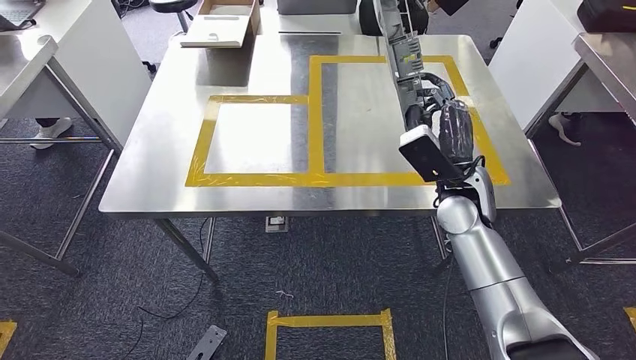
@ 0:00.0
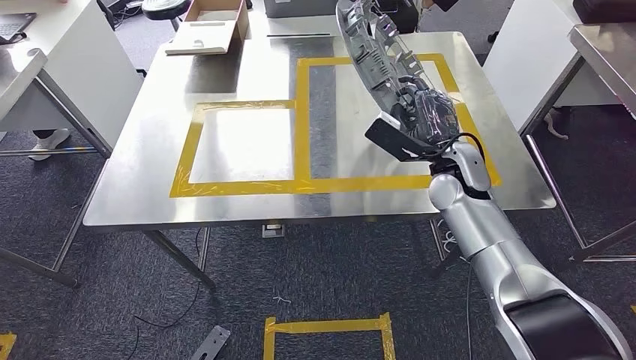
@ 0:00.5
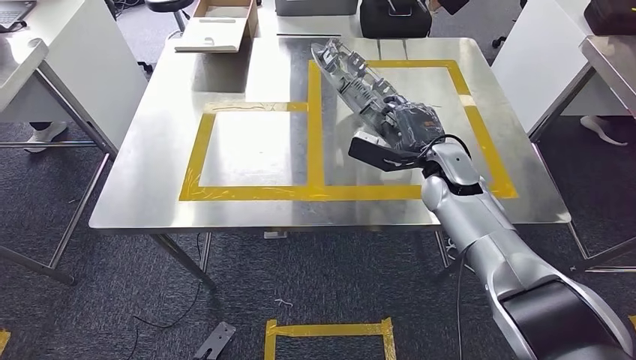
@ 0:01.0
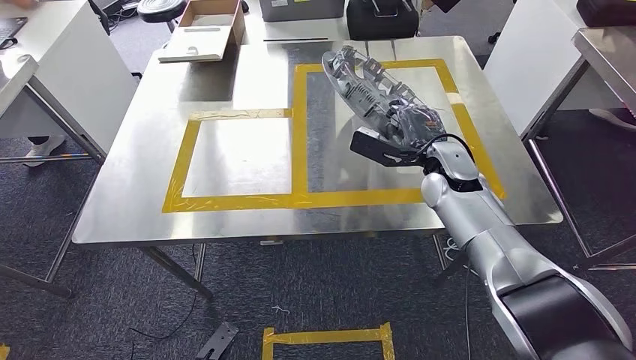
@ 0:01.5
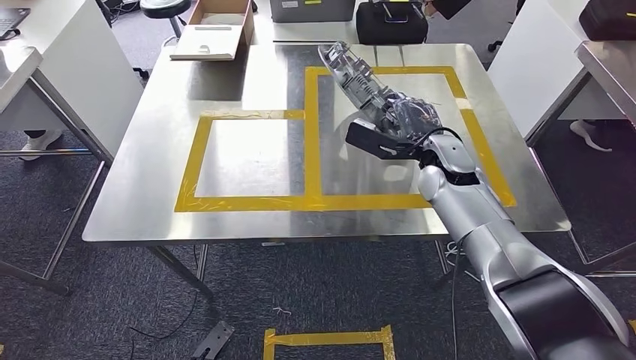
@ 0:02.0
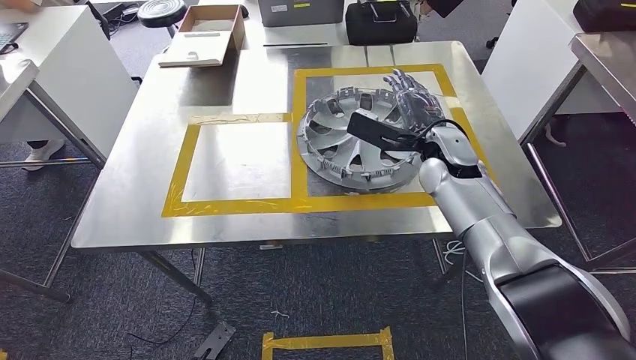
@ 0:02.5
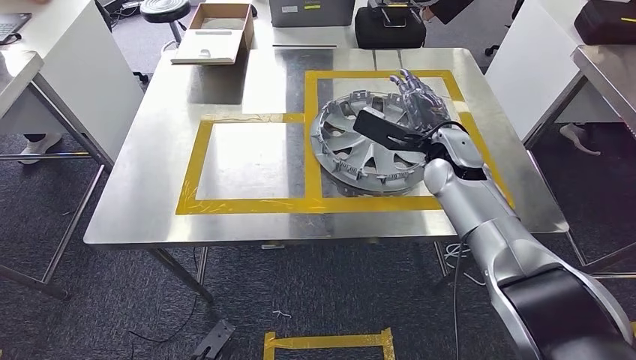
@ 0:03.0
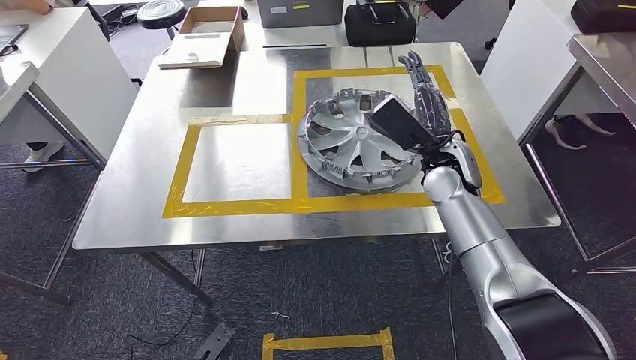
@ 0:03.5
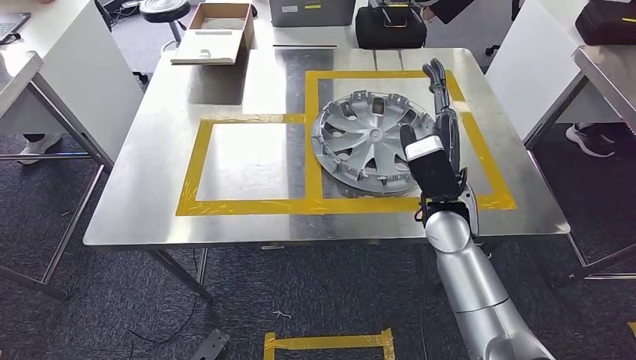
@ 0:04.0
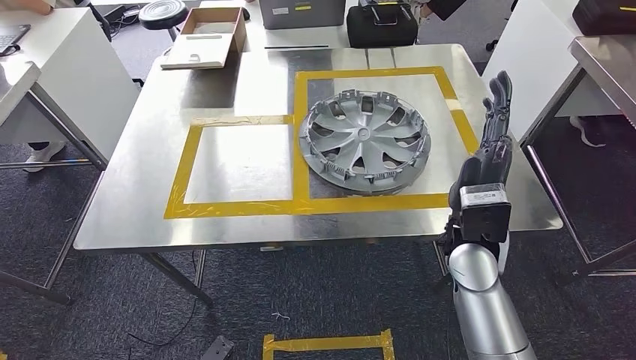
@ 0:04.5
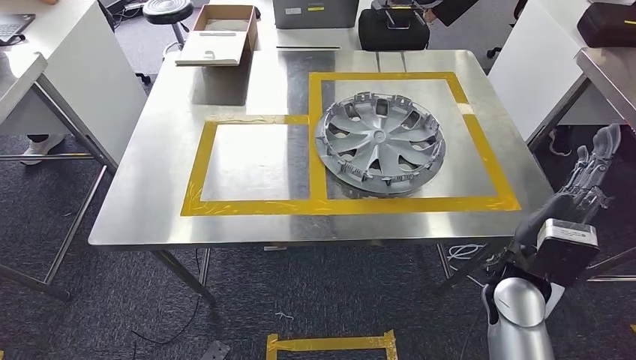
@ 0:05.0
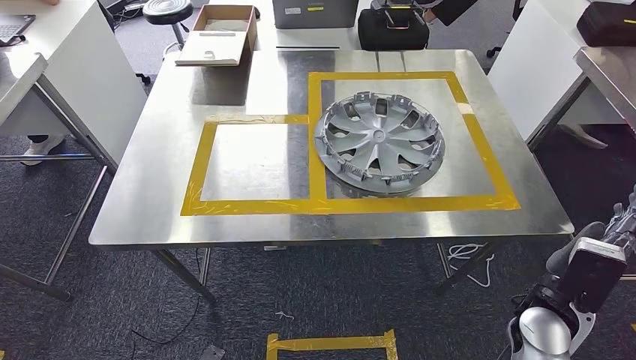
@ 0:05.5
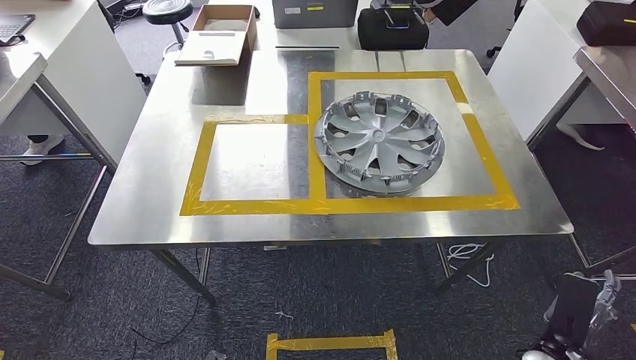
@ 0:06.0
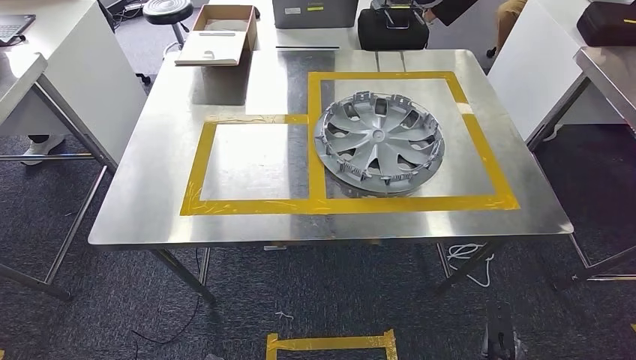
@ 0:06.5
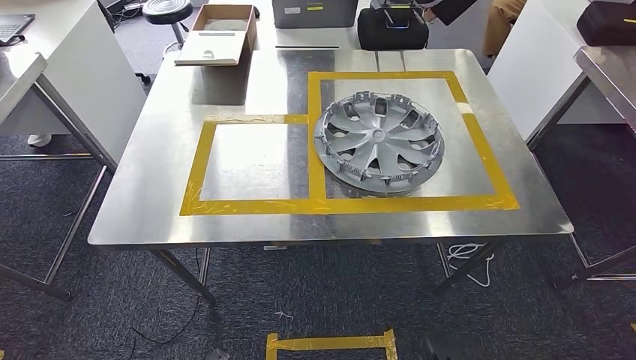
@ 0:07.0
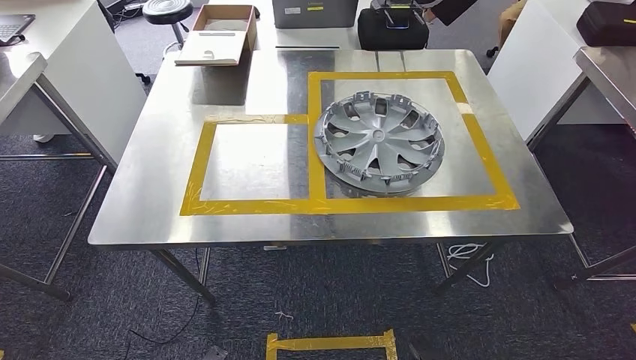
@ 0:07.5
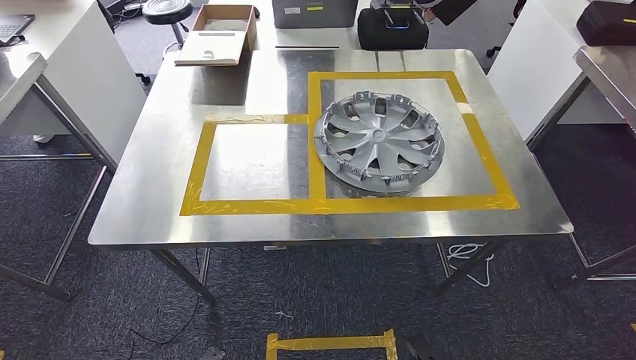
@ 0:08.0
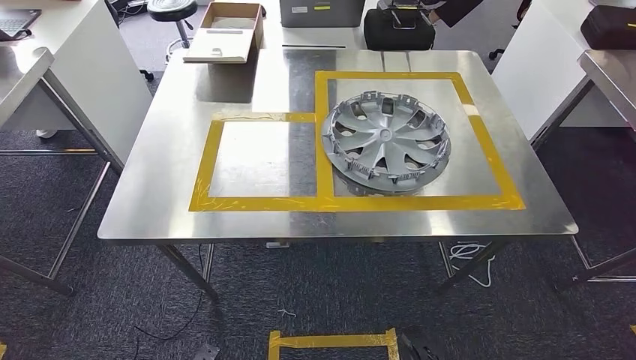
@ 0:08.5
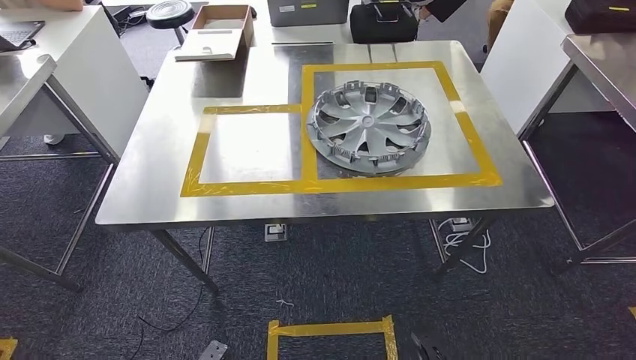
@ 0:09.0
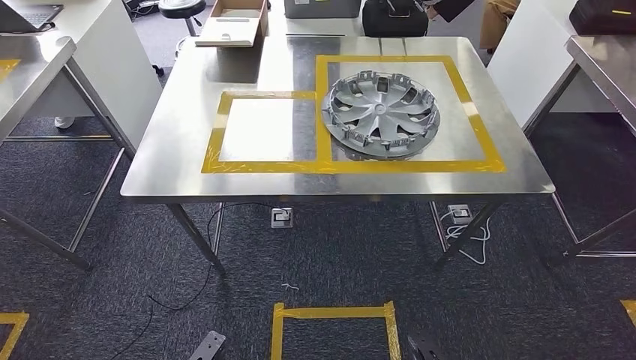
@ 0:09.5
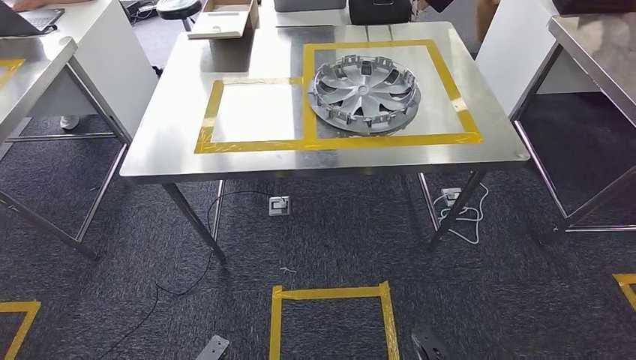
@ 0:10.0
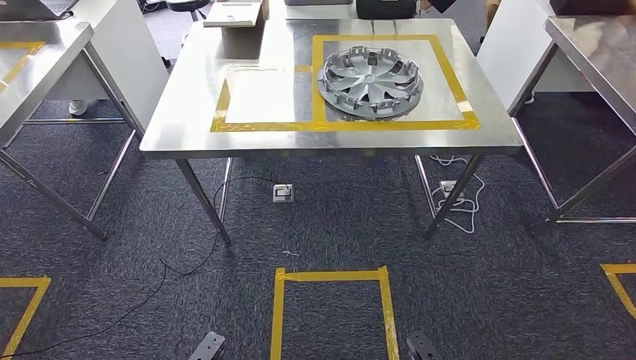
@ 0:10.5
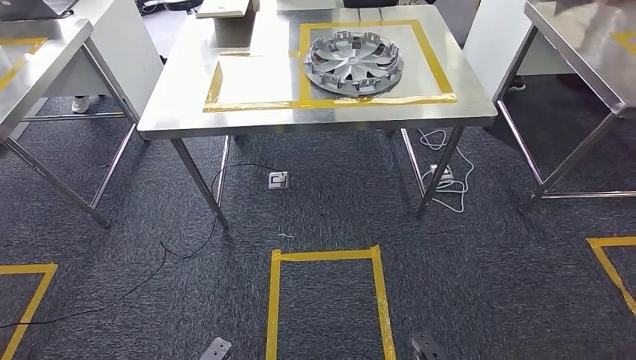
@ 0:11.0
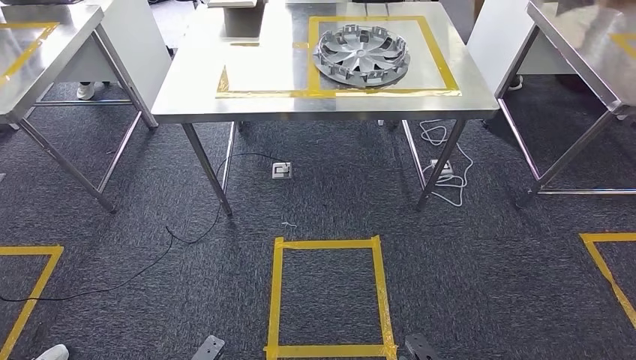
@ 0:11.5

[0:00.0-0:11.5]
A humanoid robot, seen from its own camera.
Step, 0:00.5 to 0:03.5: Insert the small component into the corresponding slot on the workbench.
0:04.0 to 0:06.0: The right hand goes some 30 cm backward, downward and to the right.
0:06.0 to 0:07.5: The right hand goes some 20 cm downward, to the left and backward.

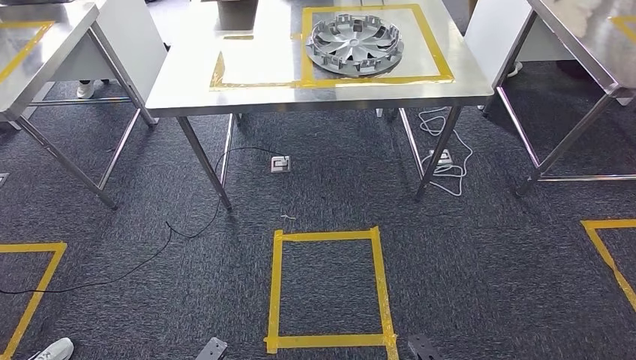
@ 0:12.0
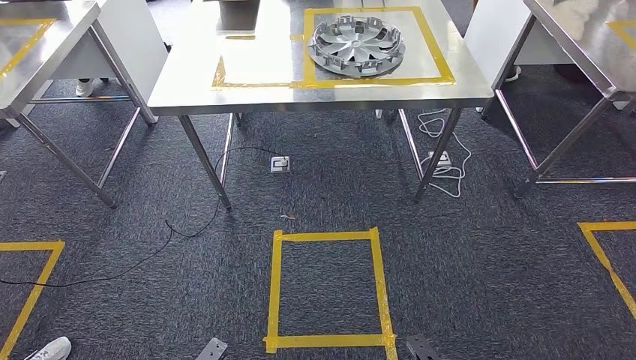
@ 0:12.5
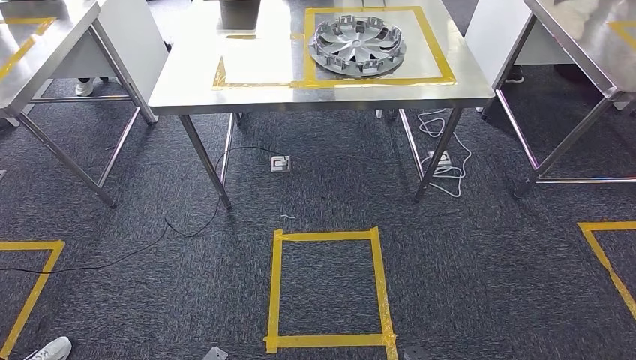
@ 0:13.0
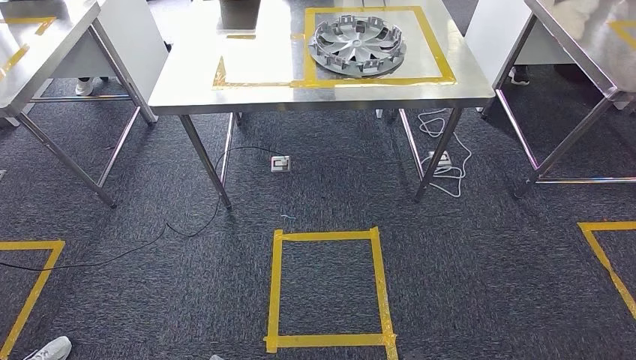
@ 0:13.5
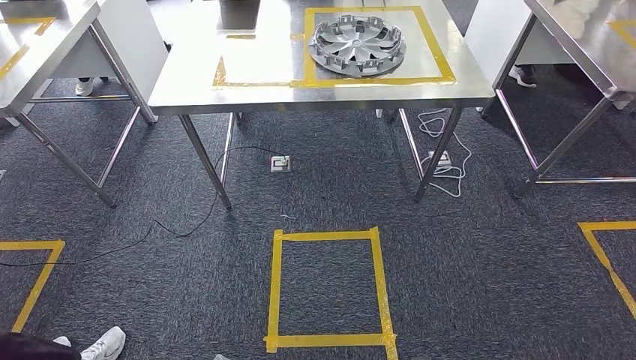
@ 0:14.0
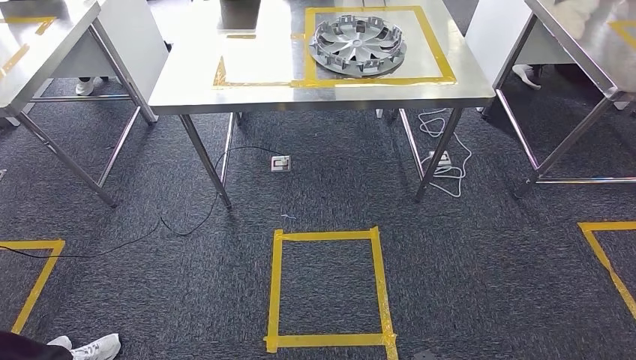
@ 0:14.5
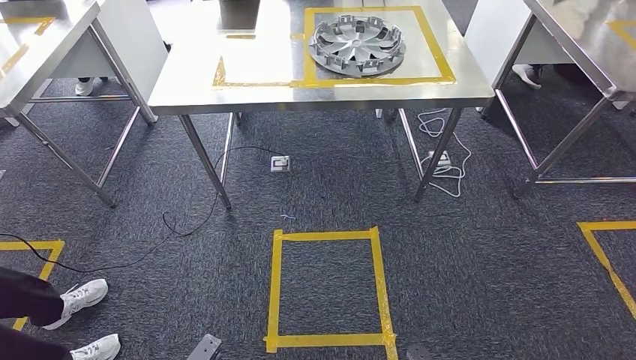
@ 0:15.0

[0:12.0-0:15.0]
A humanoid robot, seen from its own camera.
Step, 0:12.0 to 0:15.0: Move to the initial position of the workbench.
0:12.0 to 0:15.0: The hands move only a little.
